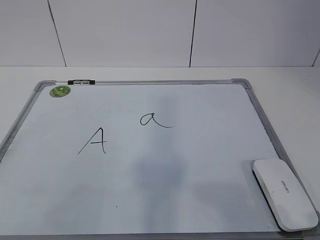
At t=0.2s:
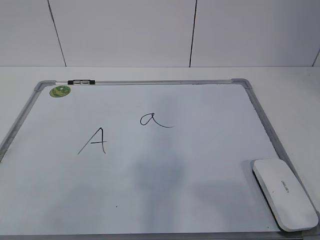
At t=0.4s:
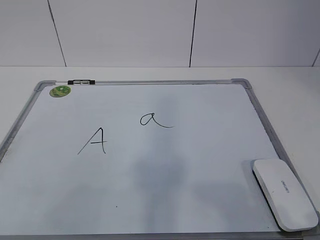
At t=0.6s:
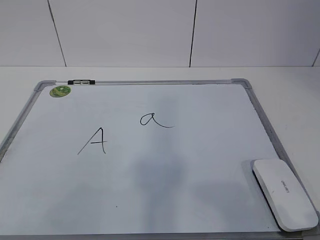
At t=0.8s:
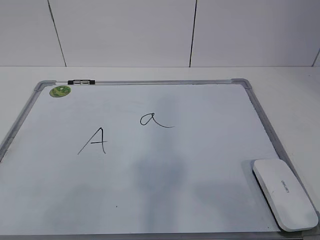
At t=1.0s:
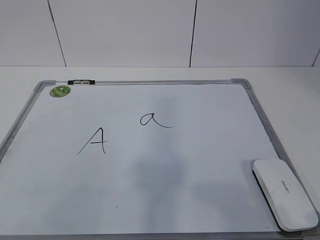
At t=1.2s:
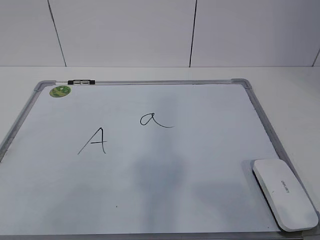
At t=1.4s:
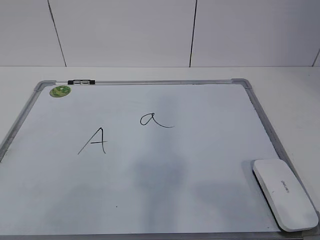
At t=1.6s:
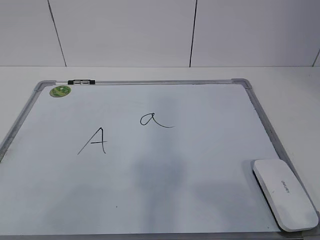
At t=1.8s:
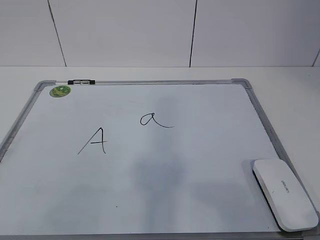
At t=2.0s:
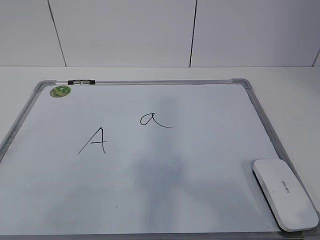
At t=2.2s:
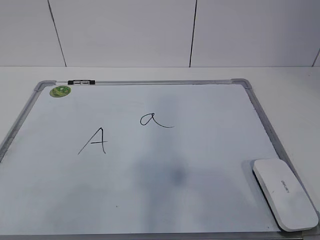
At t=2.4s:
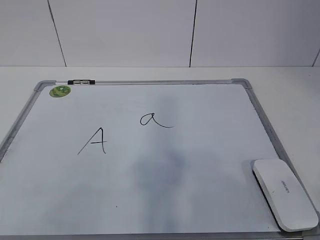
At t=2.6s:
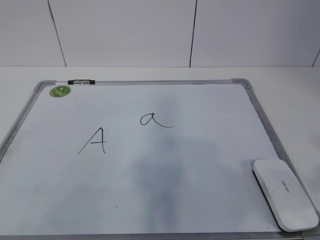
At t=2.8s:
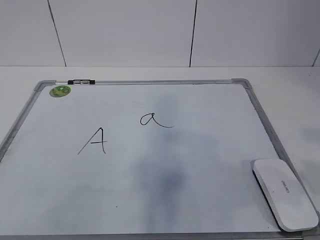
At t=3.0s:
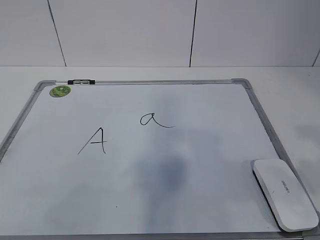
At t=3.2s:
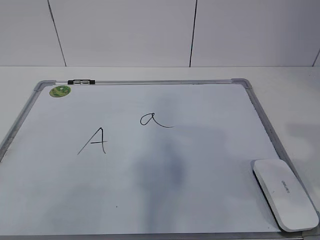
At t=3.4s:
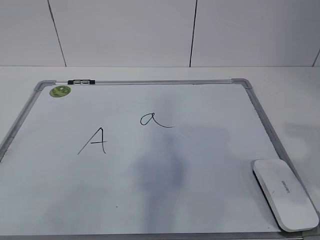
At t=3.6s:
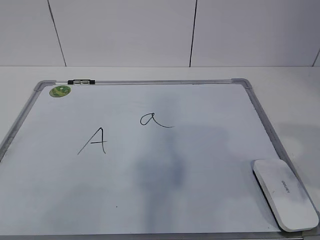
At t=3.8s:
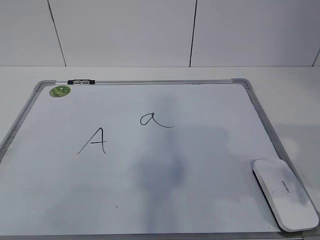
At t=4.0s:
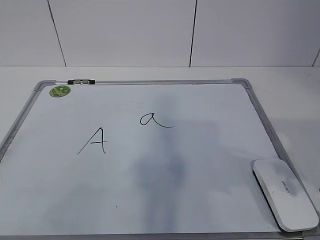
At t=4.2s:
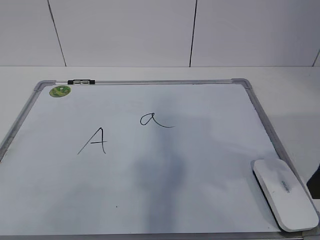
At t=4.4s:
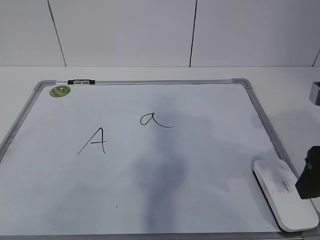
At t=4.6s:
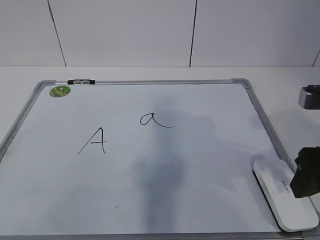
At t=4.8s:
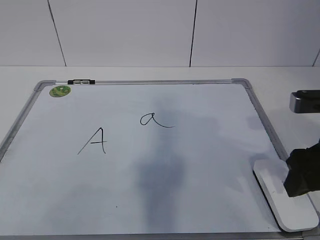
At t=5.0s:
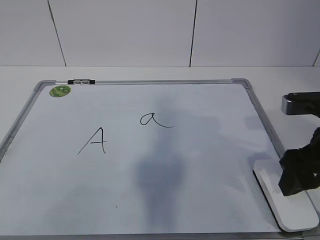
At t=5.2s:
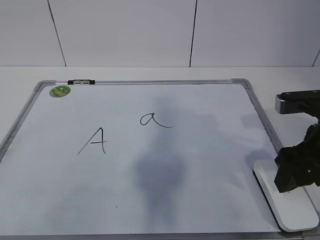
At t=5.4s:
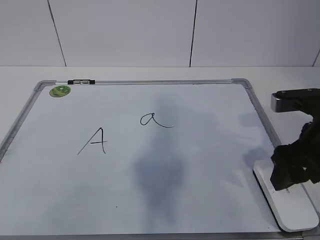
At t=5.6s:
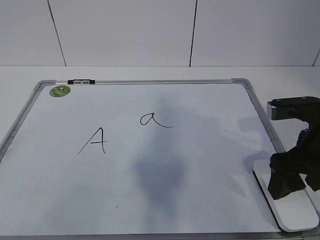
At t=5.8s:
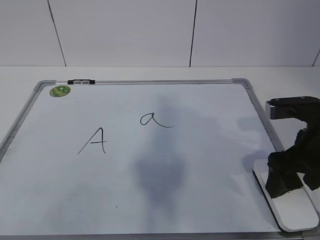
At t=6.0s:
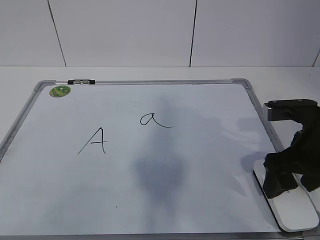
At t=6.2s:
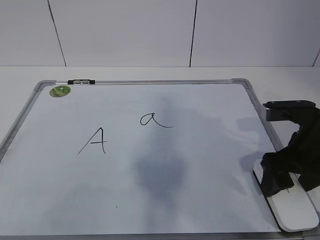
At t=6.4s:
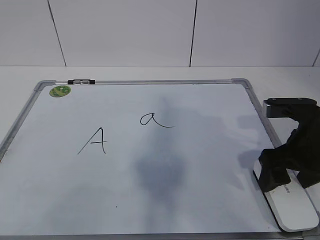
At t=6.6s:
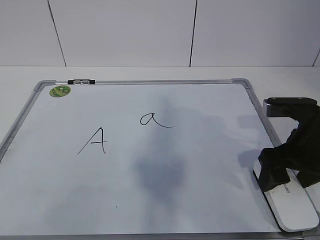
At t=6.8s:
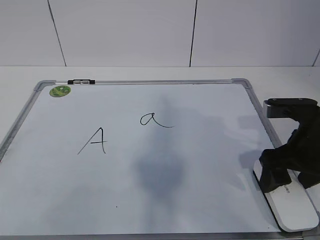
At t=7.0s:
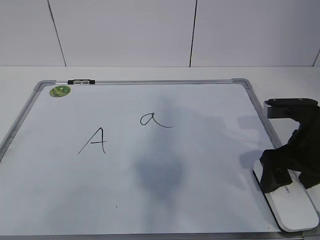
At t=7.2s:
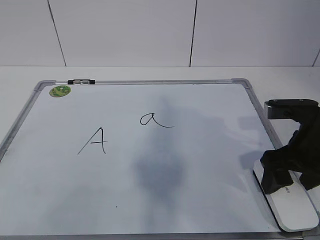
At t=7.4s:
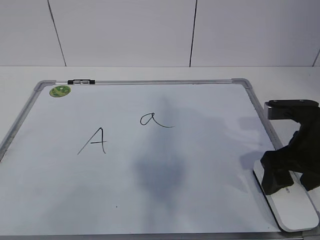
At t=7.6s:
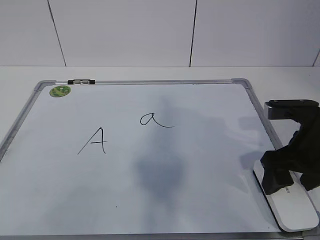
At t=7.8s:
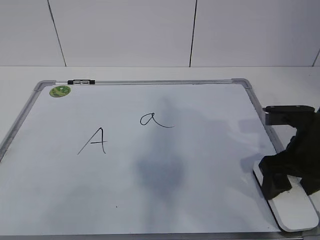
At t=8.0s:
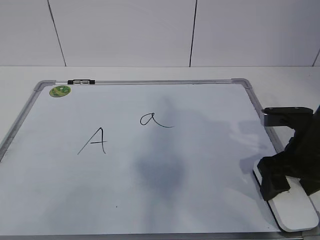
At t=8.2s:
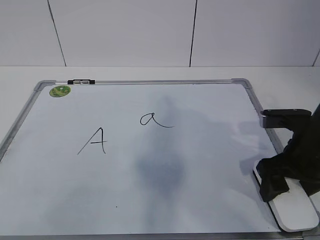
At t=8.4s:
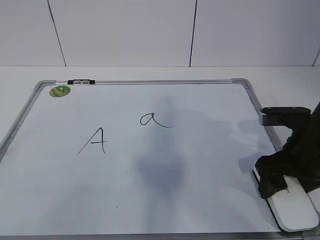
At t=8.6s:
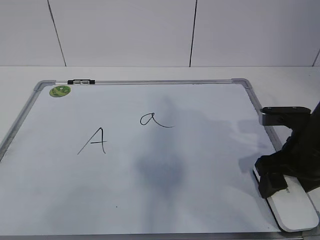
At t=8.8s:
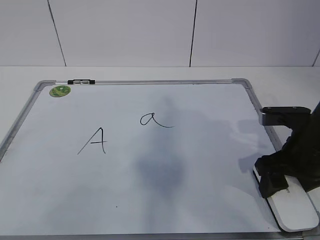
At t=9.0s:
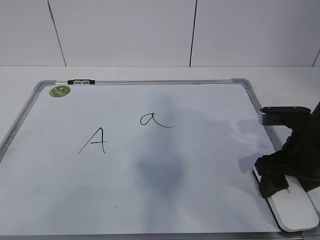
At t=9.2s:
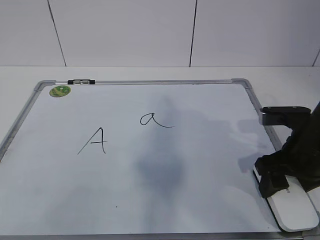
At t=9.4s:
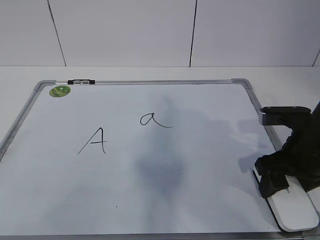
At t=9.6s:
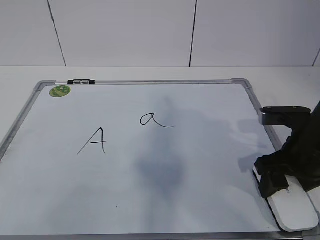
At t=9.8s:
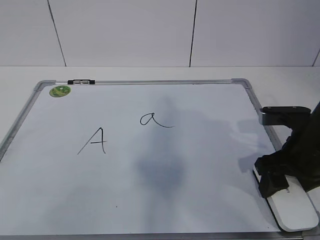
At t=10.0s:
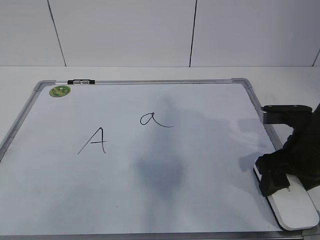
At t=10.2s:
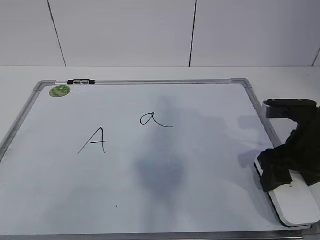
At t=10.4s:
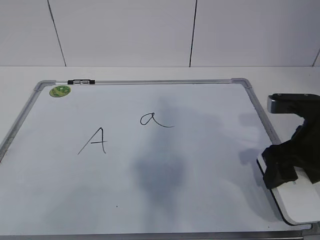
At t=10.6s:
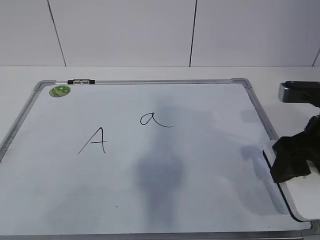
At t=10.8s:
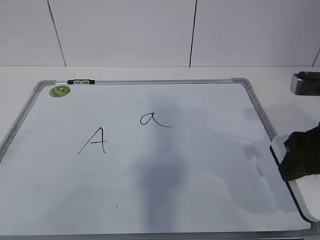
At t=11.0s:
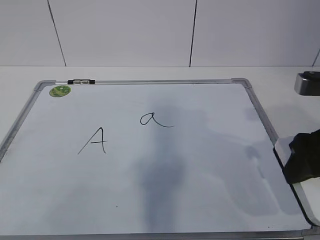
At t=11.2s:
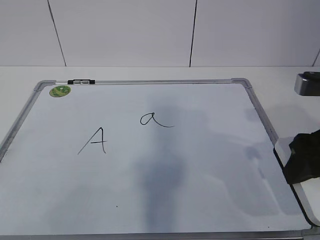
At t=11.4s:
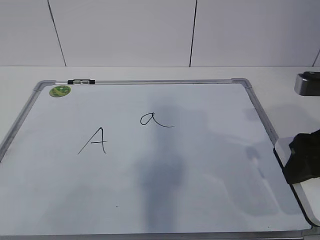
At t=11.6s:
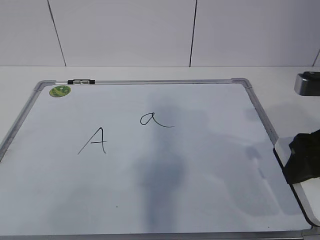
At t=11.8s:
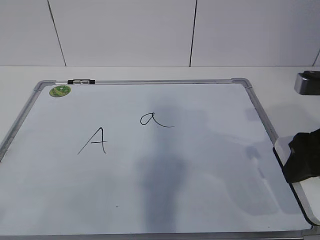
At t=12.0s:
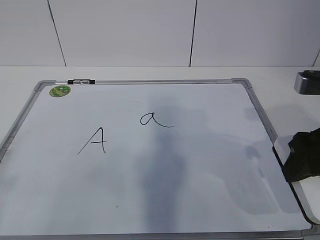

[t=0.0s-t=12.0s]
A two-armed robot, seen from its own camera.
Task of the whole recording: pick up the eraser on the blackboard and erase the letter "a".
Step, t=0.0s to t=8.2s: Grab the eraser with your right hand.
t=3.0s to t=4.4s: The right gripper moves forward and downward, roughly 10 cm.
t=4.4s to t=6.0s: The right gripper shifts some 10 cm downward and forward, and opens.
t=6.0s to t=7.6s: Both grippers stay about where they are.
t=7.6s to t=9.0s: The right gripper closes up.
t=9.0s to t=10.4s: The grippers make only small movements.
t=10.4s to t=12.0s: The right gripper is displaced upward by some 5 cm.

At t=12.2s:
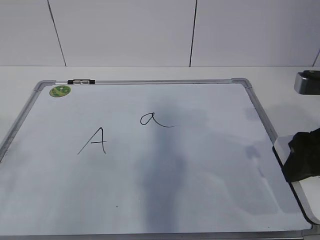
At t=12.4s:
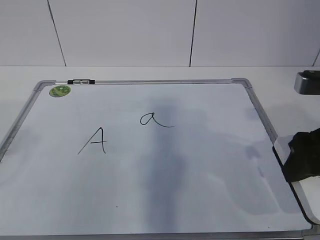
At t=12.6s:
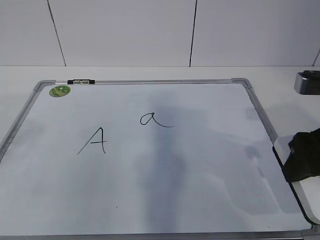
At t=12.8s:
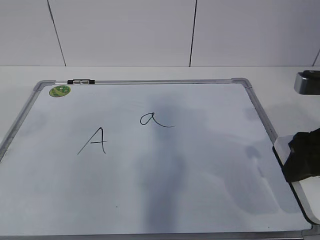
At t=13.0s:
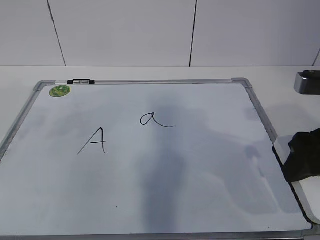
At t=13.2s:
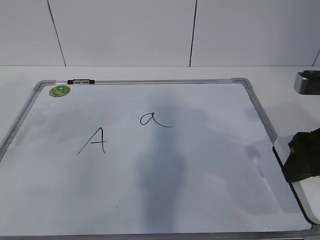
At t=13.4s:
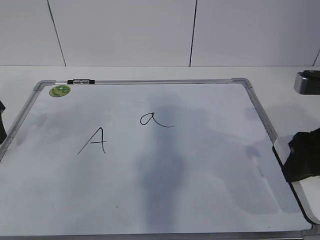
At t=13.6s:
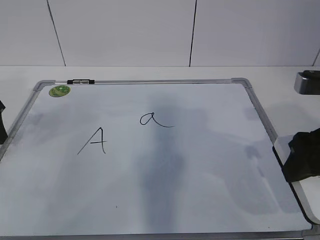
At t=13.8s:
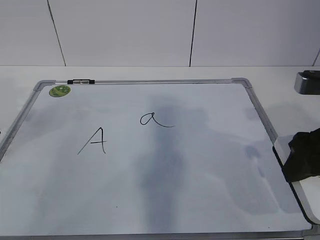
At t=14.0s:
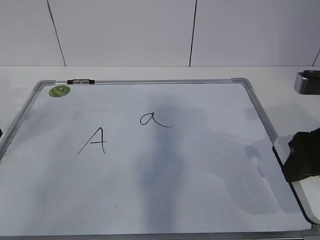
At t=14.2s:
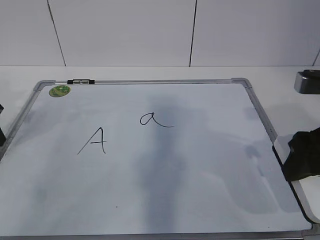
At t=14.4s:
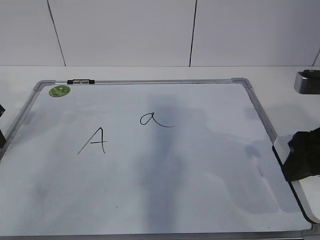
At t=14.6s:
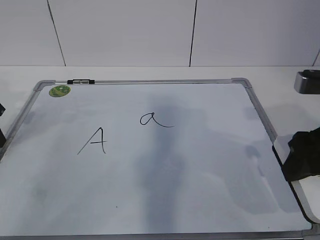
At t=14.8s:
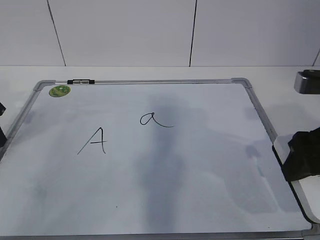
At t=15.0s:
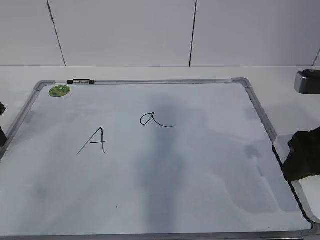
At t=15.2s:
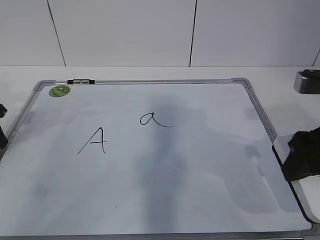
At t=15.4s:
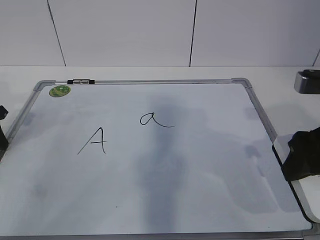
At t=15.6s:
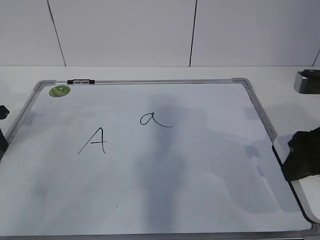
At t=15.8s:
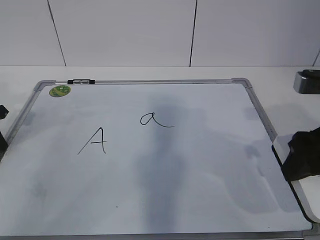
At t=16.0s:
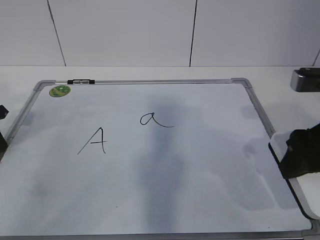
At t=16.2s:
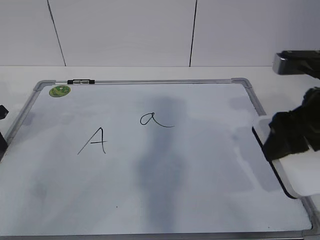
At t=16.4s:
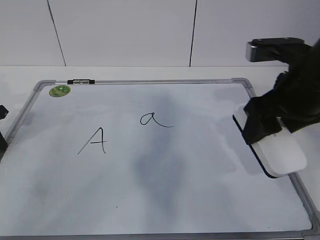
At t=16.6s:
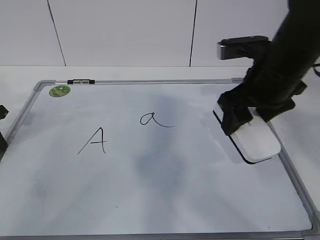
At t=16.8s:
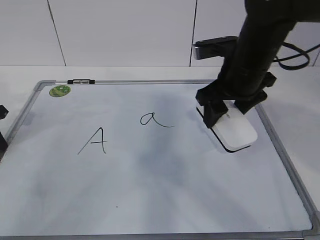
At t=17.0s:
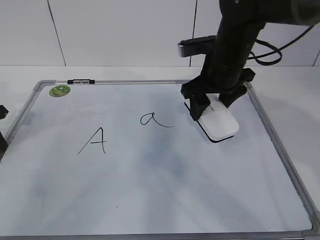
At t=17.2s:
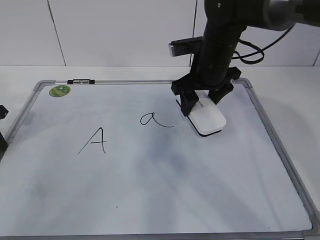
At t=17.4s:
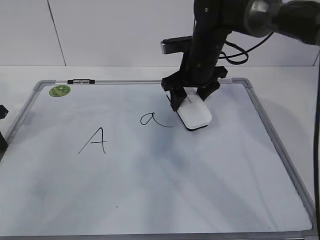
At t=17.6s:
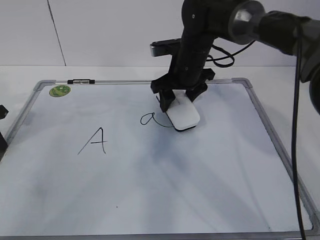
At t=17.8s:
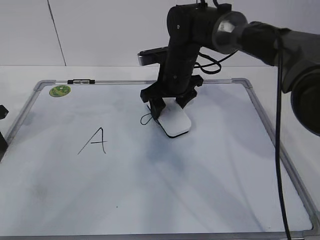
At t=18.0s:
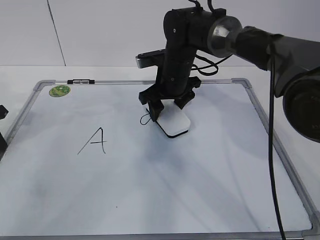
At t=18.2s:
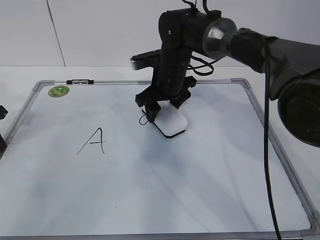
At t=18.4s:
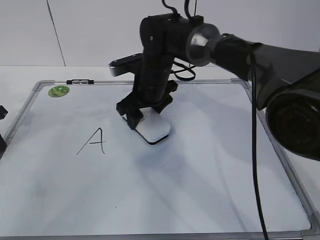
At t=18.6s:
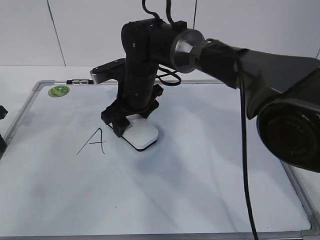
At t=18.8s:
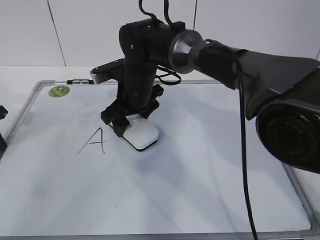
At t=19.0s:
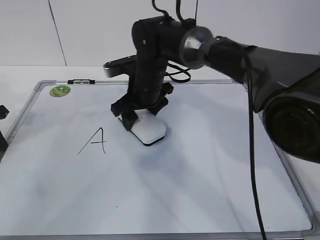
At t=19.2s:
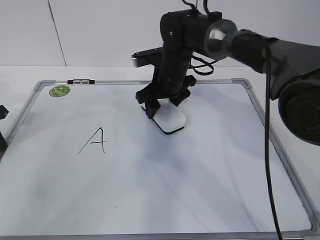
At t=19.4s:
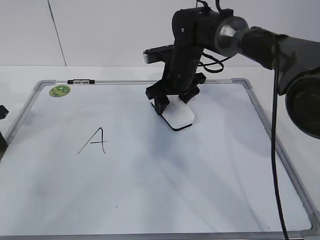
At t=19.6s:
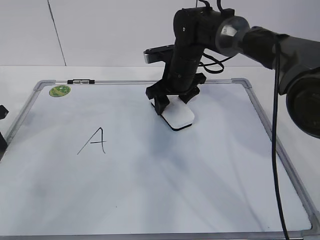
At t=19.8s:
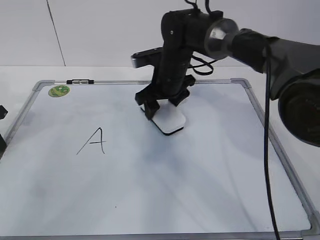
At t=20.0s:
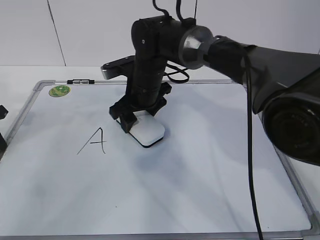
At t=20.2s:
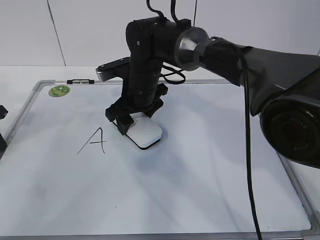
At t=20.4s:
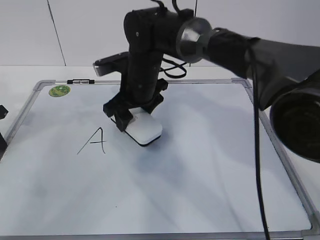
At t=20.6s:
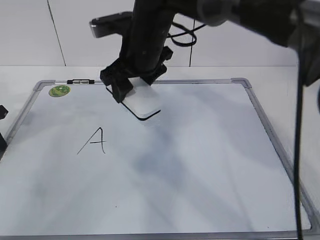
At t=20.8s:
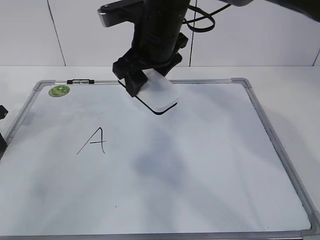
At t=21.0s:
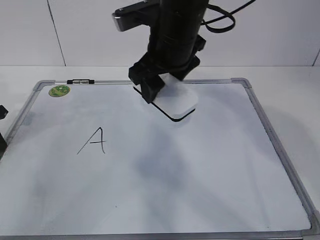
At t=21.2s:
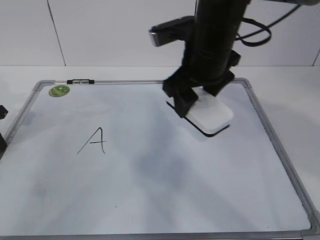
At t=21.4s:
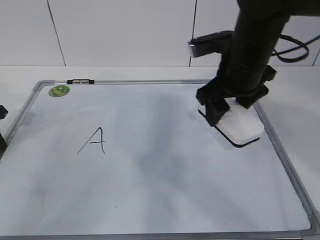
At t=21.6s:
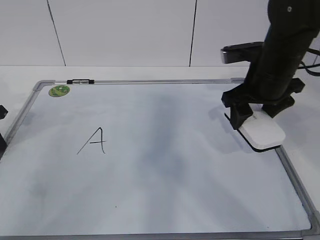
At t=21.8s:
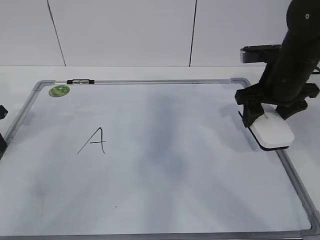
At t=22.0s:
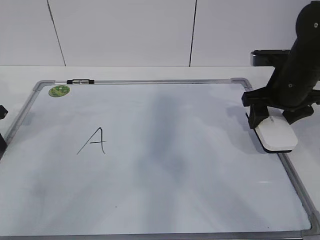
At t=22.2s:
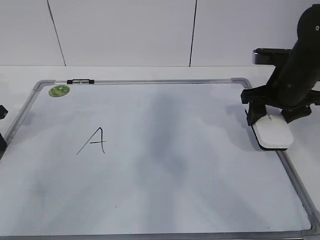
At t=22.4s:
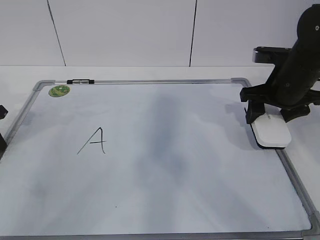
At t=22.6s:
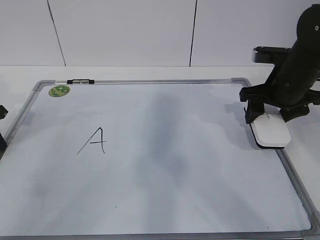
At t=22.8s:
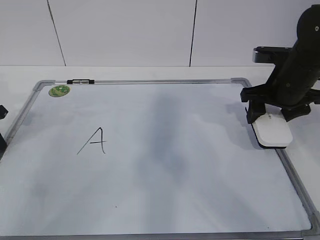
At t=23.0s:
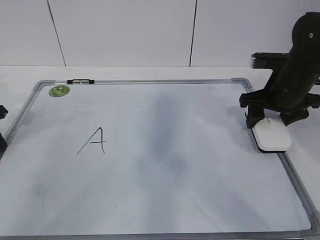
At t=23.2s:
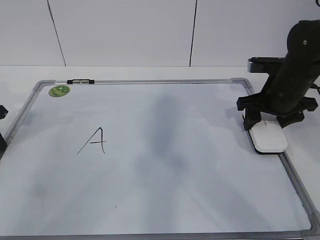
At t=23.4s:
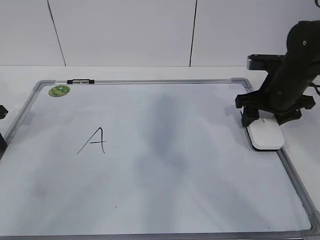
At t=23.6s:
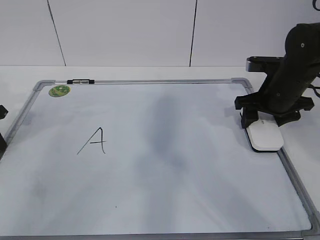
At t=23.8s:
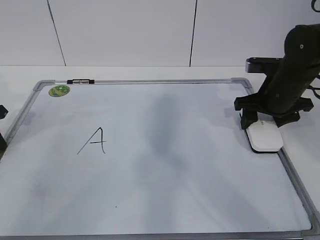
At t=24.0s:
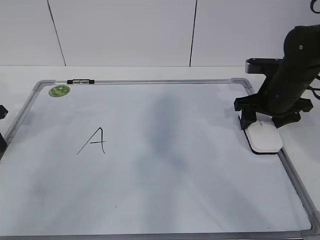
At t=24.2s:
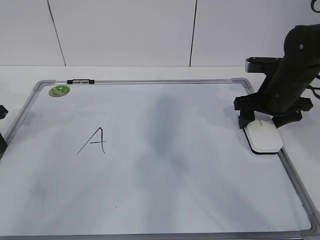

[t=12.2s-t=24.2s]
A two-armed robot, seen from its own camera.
Task of the whole recording: pick up the eraser on the blackboard and erase the letter "a".
Step, t=13.2s to t=16.8s: Erase the letter a with your right hand.
Step, t=17.0s to t=19.8s: Put down the eraser with your right hand.
t=12.2s to t=13.8s: The left gripper travels forward and downward by roughly 30 cm.
t=15.2s to t=16.6s: The left gripper closes, while the right gripper is displaced forward and to the left by some 10 cm.
t=16.6s to t=18.2s: The right gripper goes some 20 cm forward, to the left and downward.
t=18.2s to t=19.8s: The right gripper moves some 5 cm to the left and comes back.
t=19.8s to t=21.2s: The right gripper shifts approximately 15 cm upward and backward.
t=21.2s to t=22.6s: The right gripper shifts about 15 cm to the right and downward.
t=22.6s to t=24.2s: The right gripper opens its fingers.
